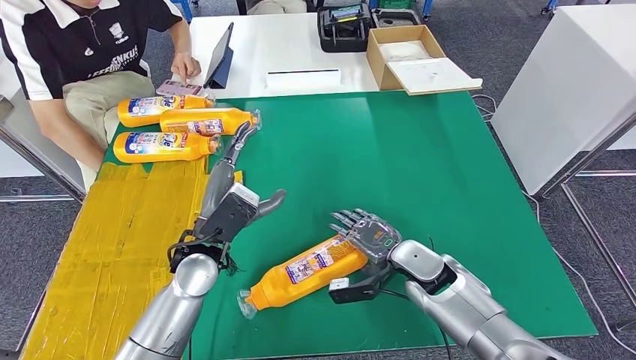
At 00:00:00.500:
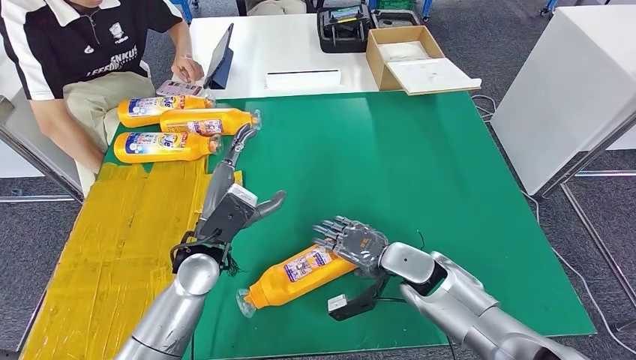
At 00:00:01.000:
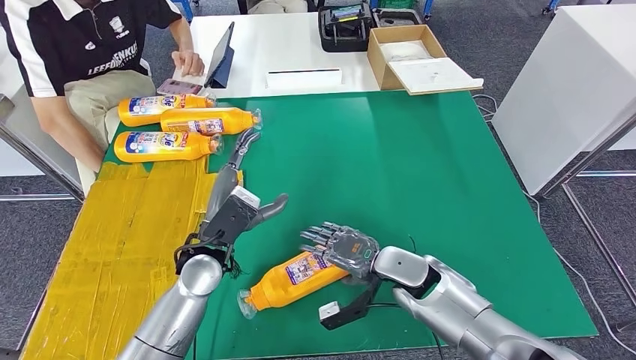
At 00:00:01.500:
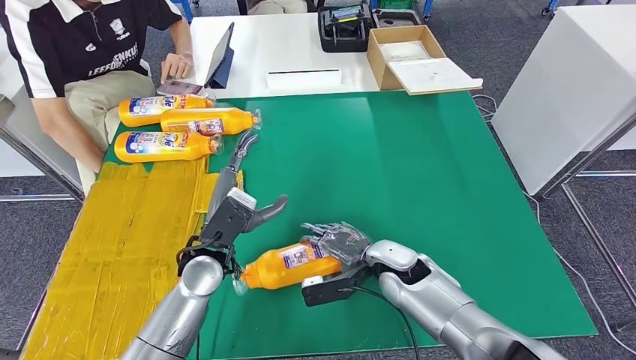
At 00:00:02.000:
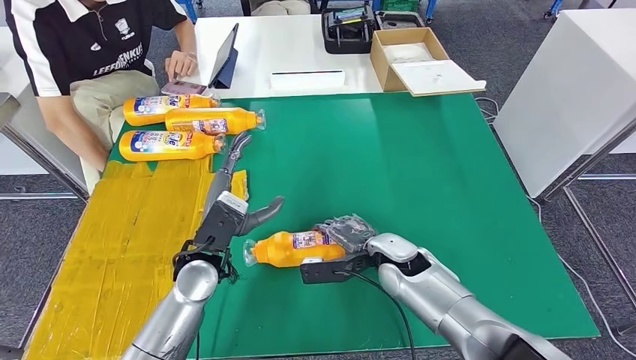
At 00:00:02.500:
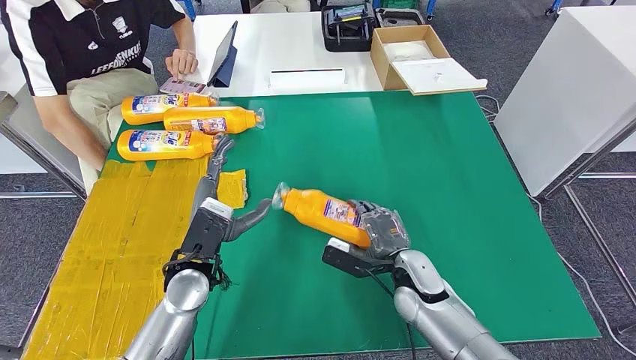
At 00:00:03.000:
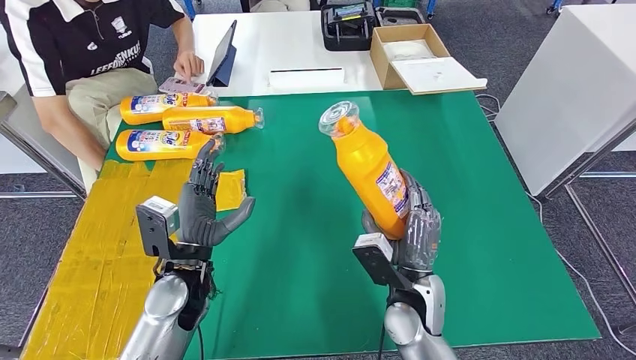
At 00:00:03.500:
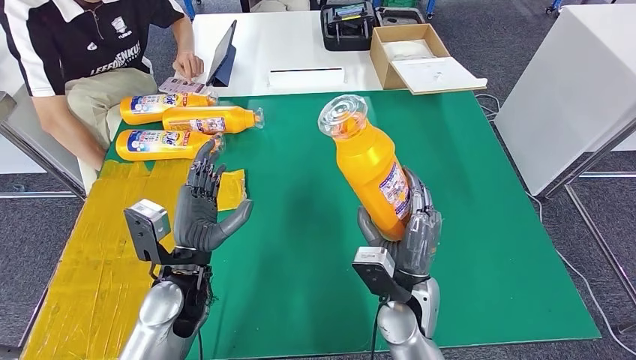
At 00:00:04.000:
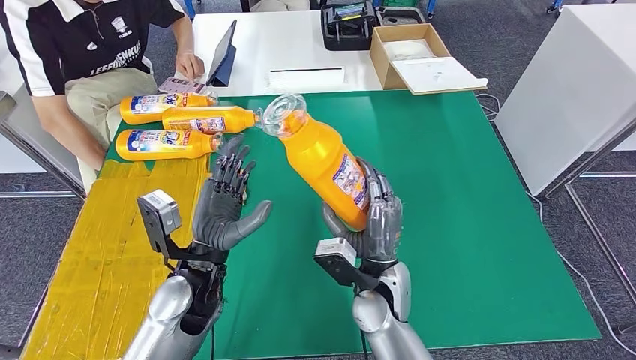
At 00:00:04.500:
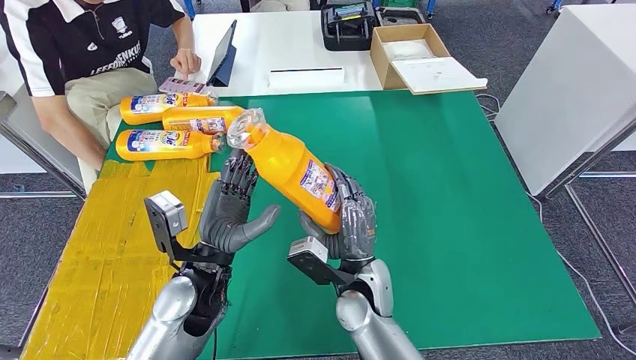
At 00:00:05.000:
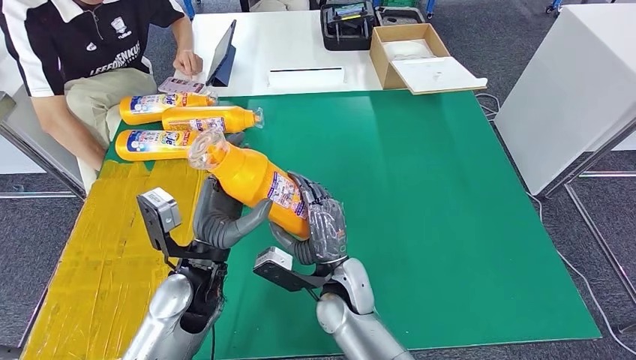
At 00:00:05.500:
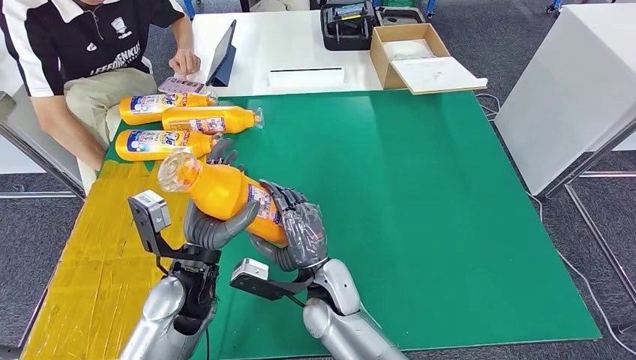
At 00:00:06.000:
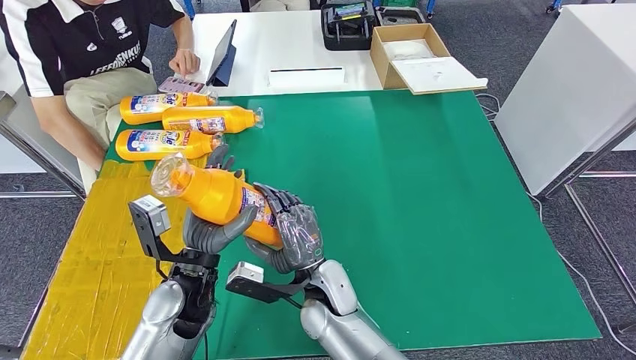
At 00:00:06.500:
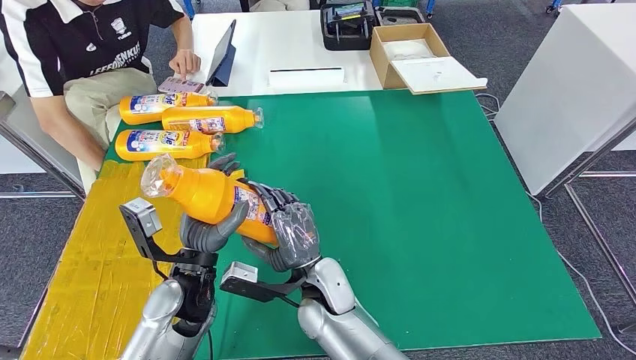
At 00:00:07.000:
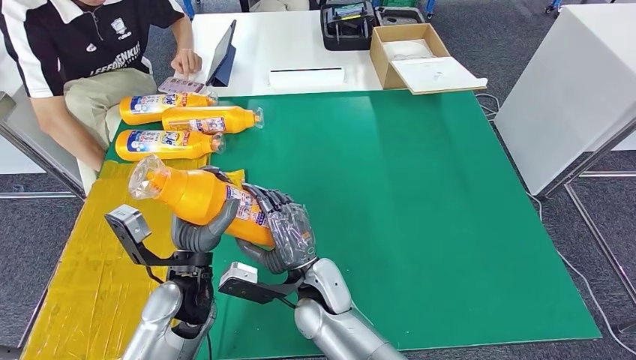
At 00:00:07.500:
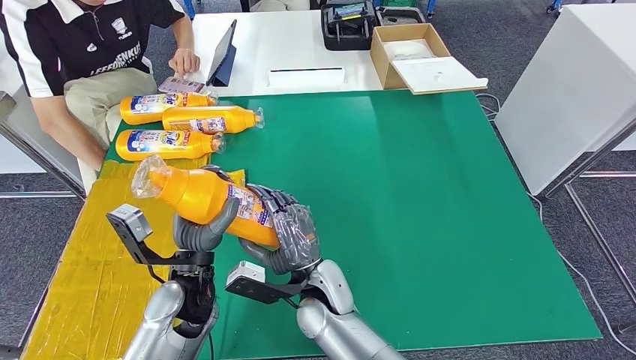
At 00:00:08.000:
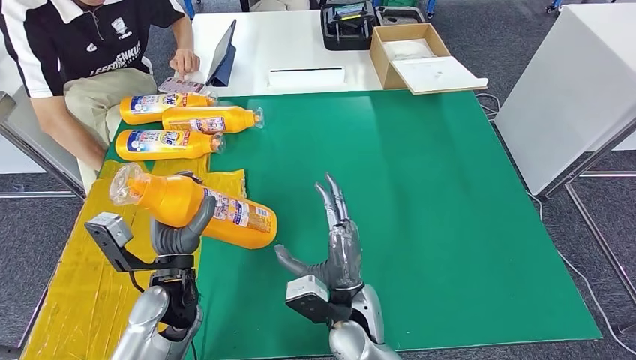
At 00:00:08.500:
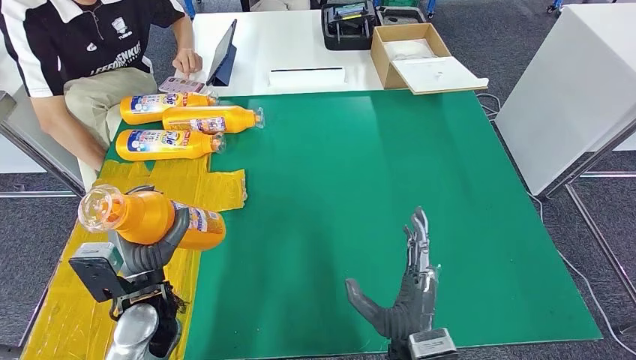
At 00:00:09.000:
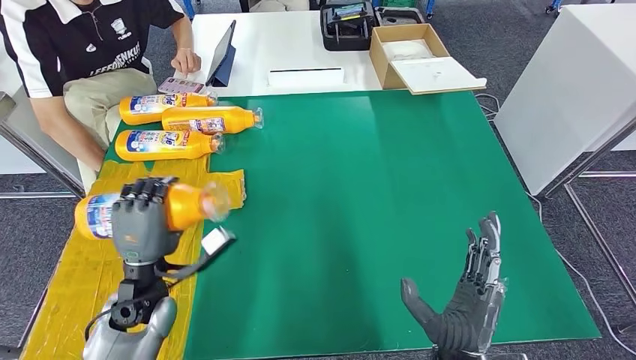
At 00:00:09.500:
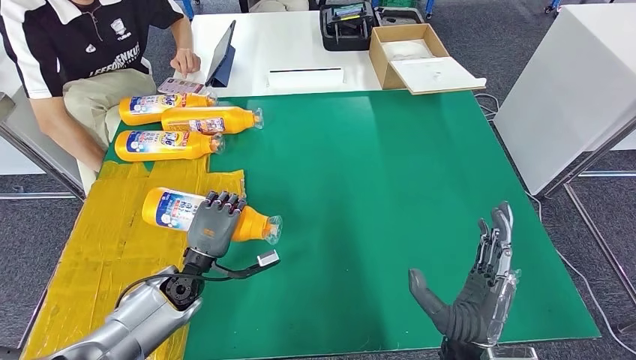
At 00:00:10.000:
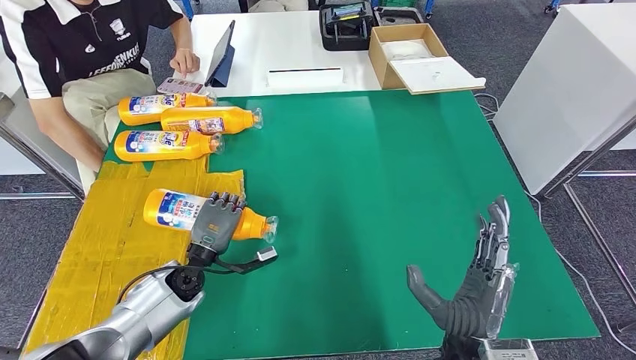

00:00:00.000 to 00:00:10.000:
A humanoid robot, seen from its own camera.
Step, 00:00:00.500 to 00:00:06.000: Pick up the fast-moving consumer goods bottle from the table.
00:00:04.000 to 00:00:06.000: The right hand shifts some 10 cm to the left.
00:00:06.000 to 00:00:08.000: The right hand changes place by approximately 5 cm.
00:00:08.000 to 00:00:10.000: The left hand travels downward and forward by approximately 10 cm; the right hand moves to the right and backward, roughly 15 cm.

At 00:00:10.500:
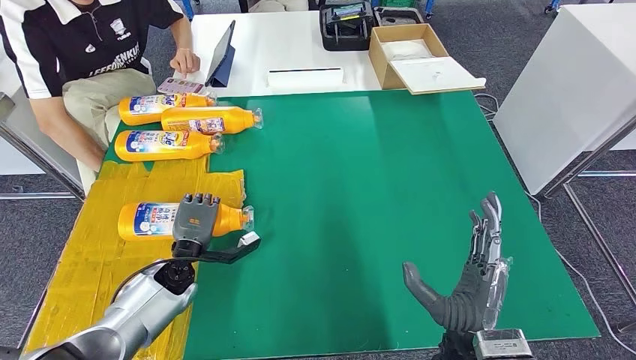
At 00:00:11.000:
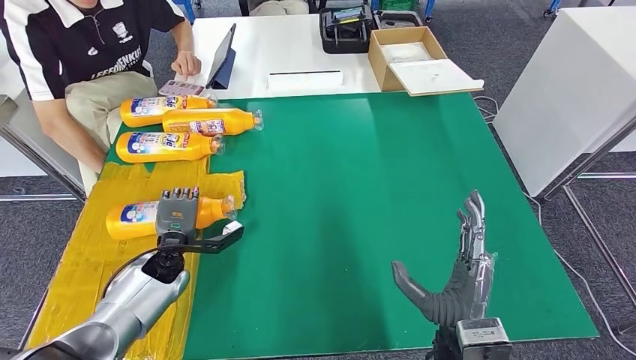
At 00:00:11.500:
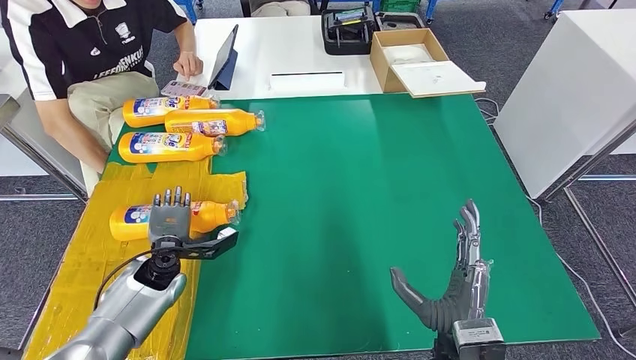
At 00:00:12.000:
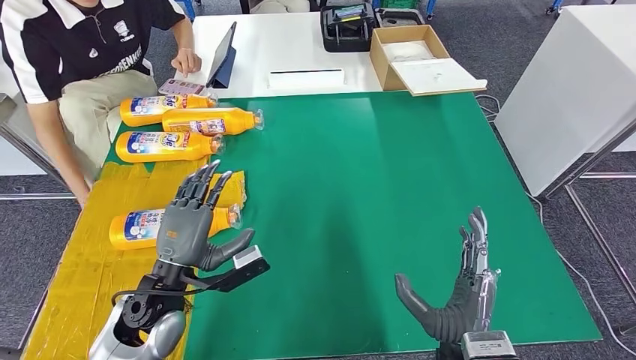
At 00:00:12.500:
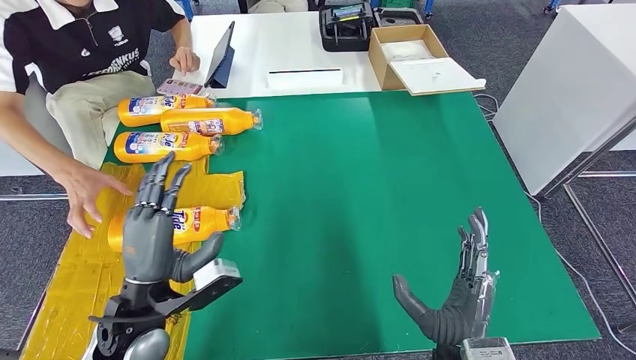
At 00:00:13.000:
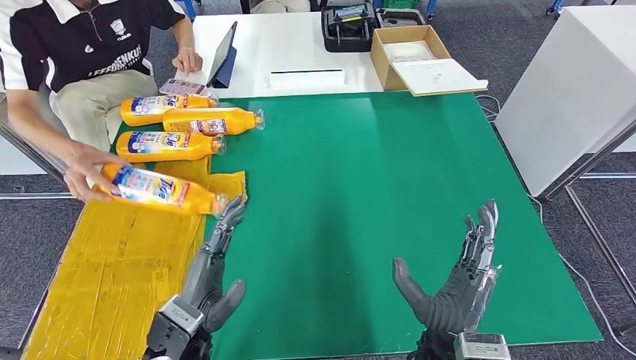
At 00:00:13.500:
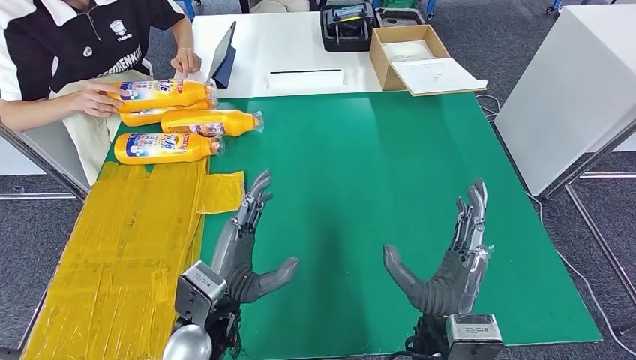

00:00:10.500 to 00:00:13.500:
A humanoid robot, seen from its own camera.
Step, 00:00:10.500 to 00:00:13.500: Flip the fast-moving consumer goods bottle to the front side.
00:00:10.500 to 00:00:12.000: The left hand is displaced upward and backward by approximately 15 cm.
00:00:12.000 to 00:00:13.500: The left hand goes roughly 10 cm to the right.
